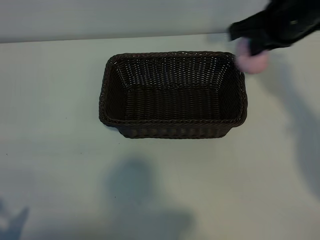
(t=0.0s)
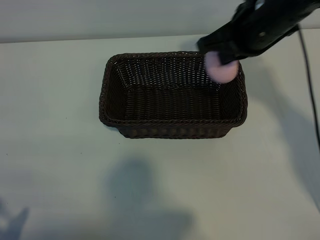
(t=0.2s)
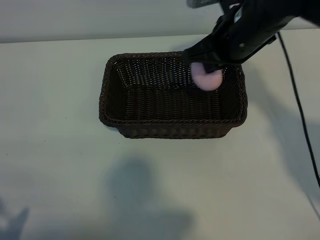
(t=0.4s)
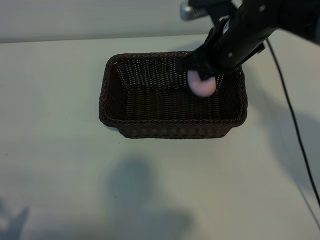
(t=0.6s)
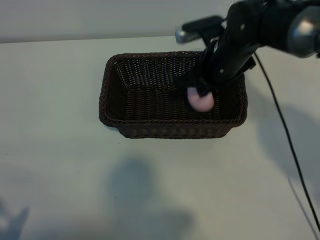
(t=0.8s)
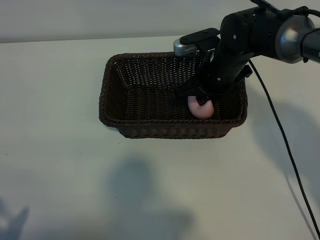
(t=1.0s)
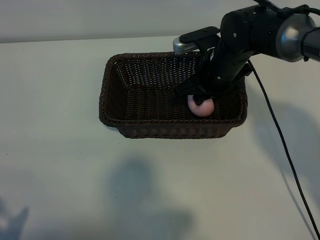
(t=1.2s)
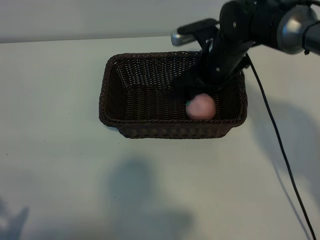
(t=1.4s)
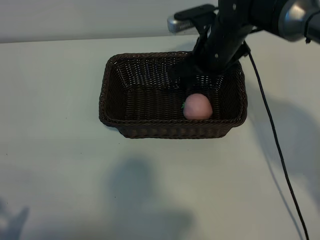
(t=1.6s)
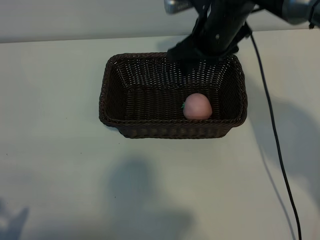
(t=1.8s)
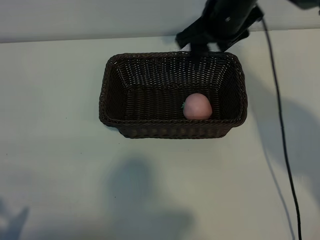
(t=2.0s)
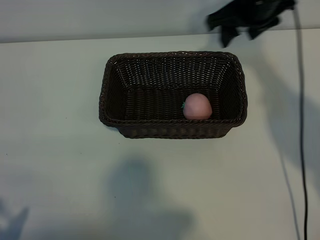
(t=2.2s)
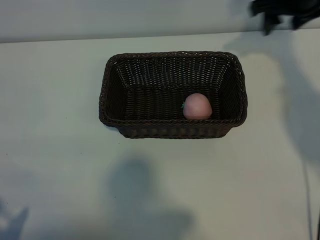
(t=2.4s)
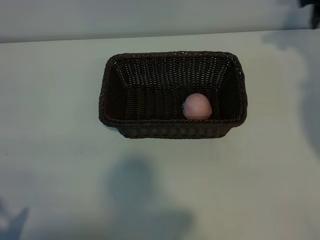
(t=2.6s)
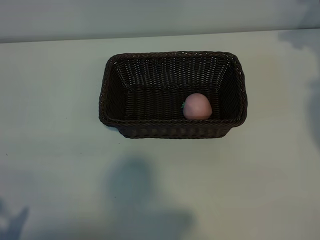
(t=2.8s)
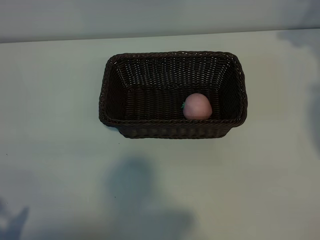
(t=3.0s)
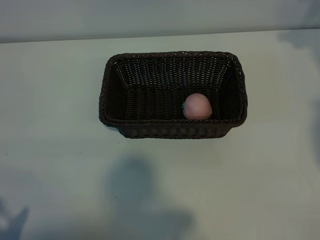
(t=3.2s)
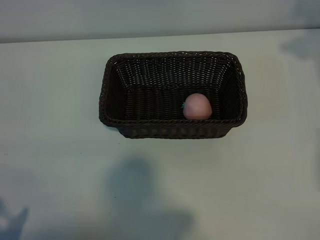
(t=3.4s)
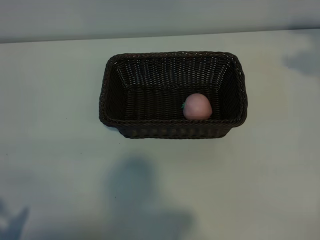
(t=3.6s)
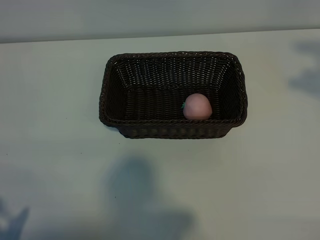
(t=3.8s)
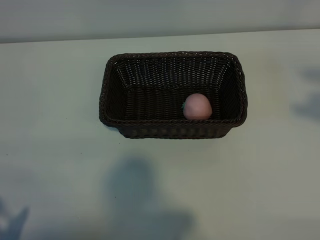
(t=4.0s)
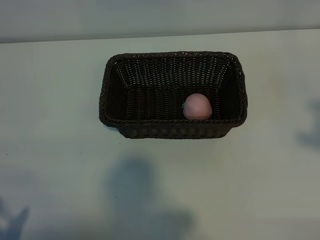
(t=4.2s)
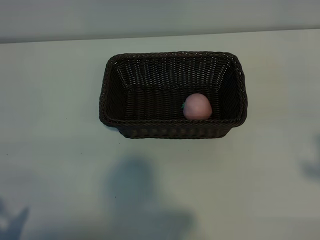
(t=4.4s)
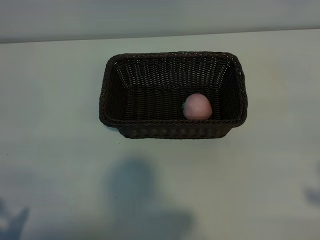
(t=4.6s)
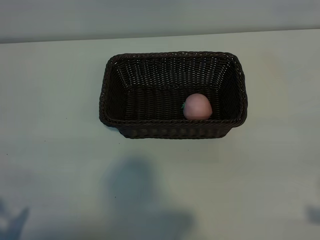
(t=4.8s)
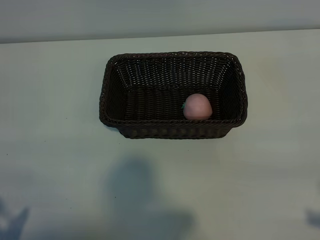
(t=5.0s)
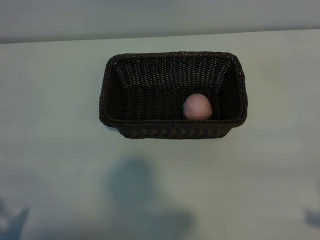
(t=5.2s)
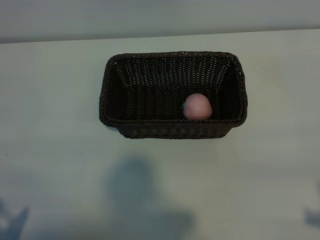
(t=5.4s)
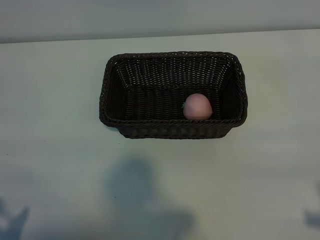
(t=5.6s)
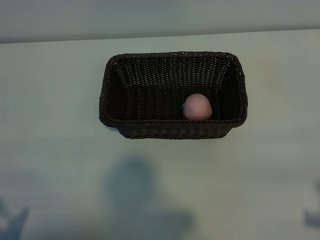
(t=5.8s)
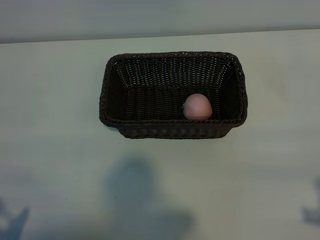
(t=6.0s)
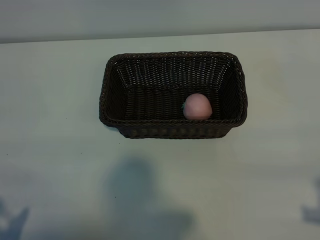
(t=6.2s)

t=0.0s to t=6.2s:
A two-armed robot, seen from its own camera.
Task of the whole recording: pick up the peach and put it into the basket.
Step, t=0.0s to t=1.4s: Place the peach in the basket with right gripper.
